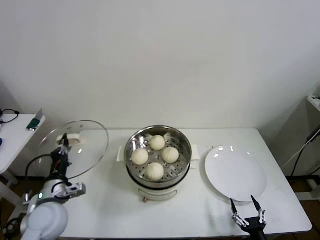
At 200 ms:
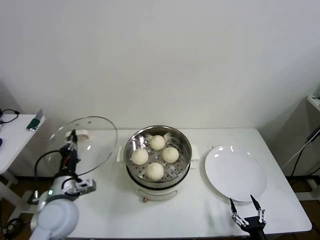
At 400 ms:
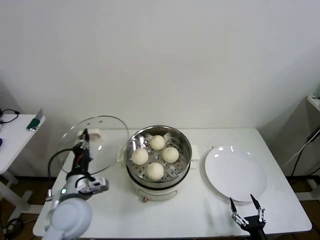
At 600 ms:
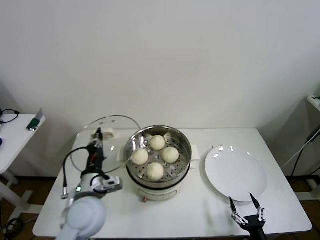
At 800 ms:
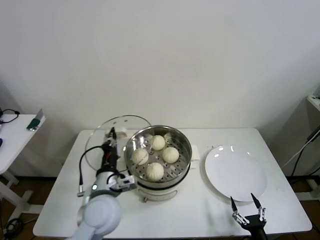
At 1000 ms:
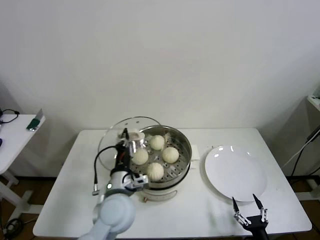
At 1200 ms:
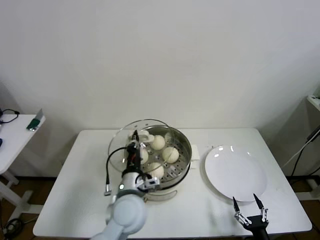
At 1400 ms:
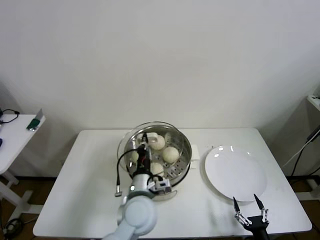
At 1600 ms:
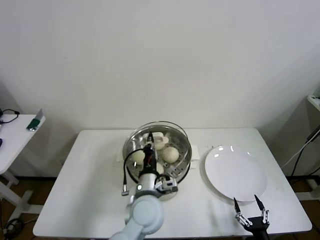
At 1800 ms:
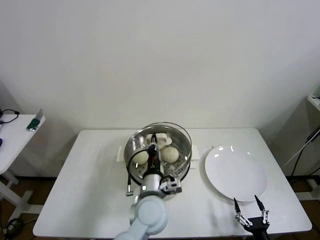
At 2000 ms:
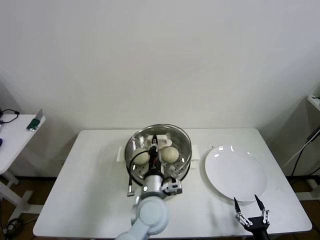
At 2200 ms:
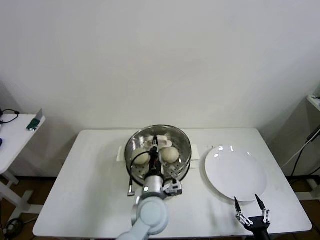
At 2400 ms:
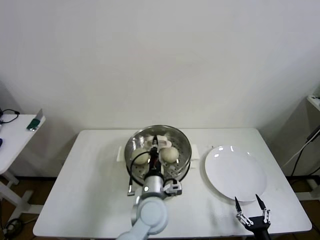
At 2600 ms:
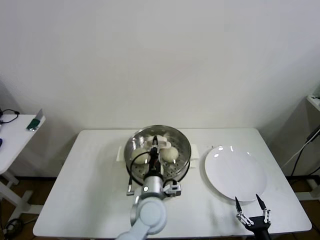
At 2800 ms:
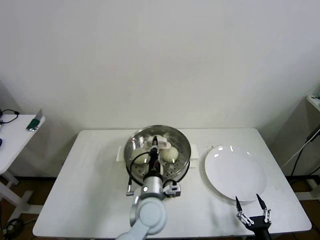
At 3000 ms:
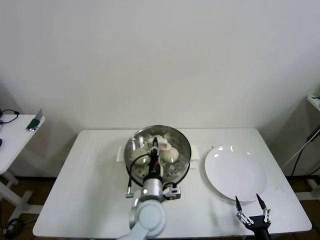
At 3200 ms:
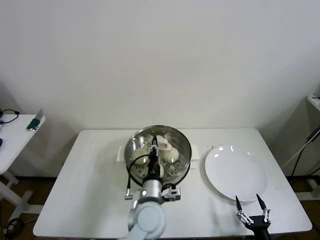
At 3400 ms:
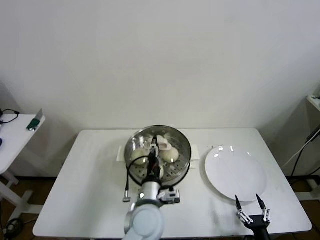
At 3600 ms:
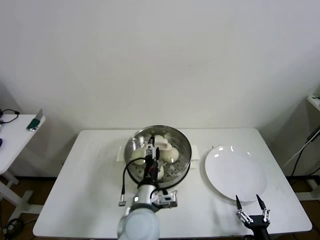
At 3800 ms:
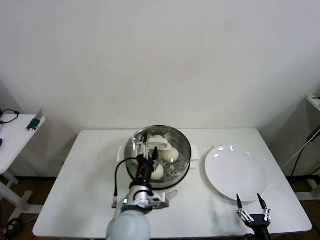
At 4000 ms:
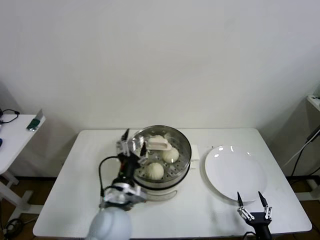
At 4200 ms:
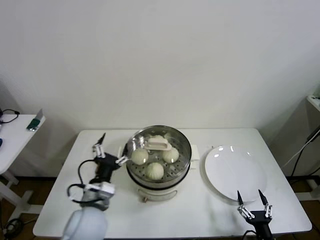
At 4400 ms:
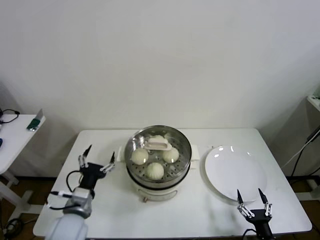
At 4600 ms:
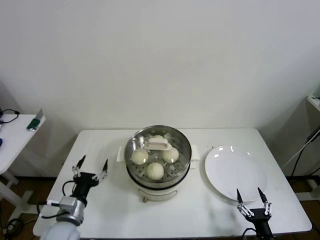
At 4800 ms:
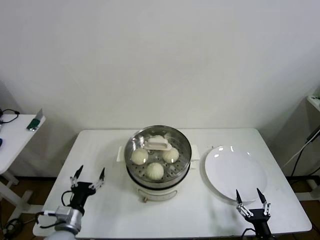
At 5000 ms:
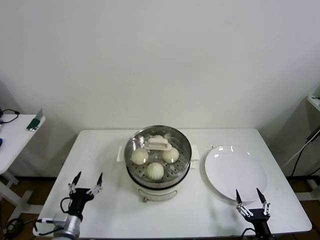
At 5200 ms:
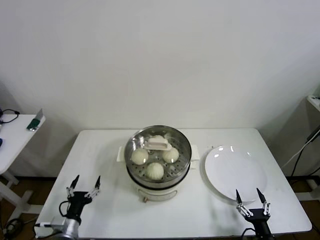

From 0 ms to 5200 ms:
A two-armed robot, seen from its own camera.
Step, from 0 ms to 3400 ms: Place the pot lid on the steamer with left gripper.
From 0 ms to 1800 ms: The left gripper goes approximately 30 cm to the right.
From 1800 ms to 3400 ms: The left gripper opens up.
From 3400 ms to 5200 ms: The left gripper travels to the left and downward by some 30 cm, and opens its fingers.
